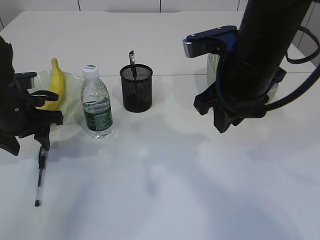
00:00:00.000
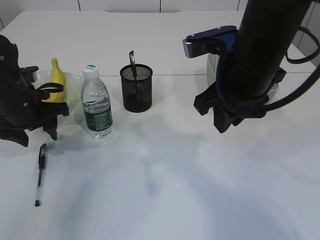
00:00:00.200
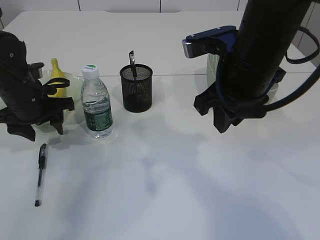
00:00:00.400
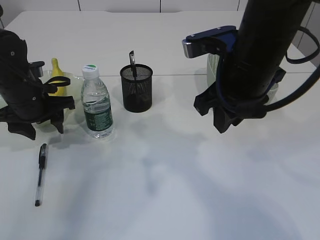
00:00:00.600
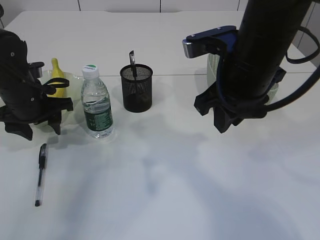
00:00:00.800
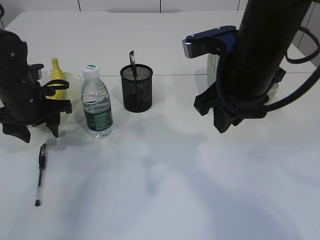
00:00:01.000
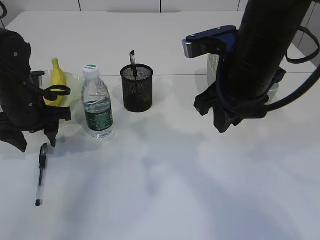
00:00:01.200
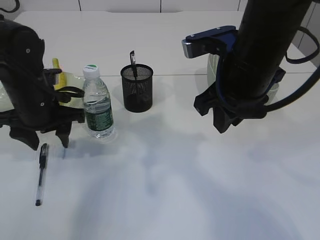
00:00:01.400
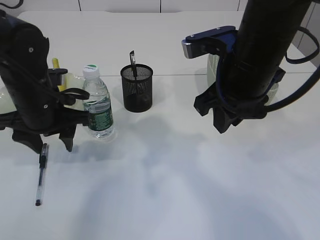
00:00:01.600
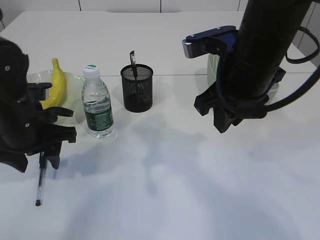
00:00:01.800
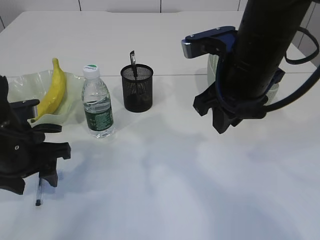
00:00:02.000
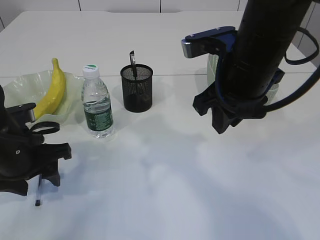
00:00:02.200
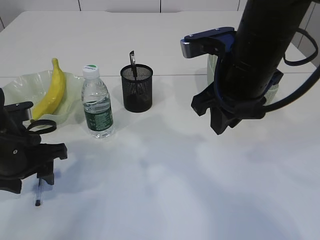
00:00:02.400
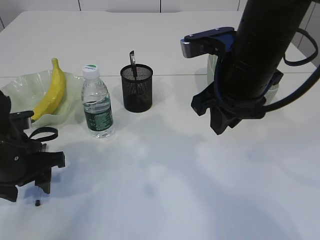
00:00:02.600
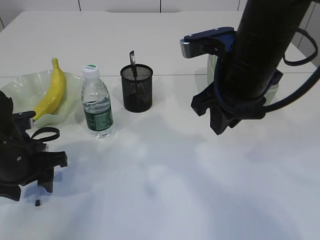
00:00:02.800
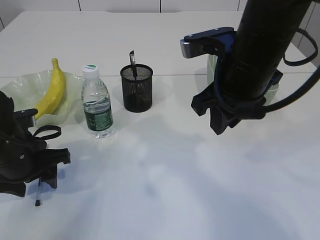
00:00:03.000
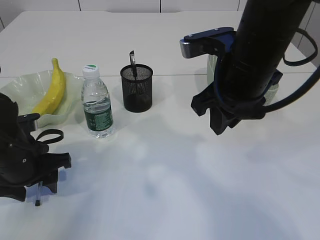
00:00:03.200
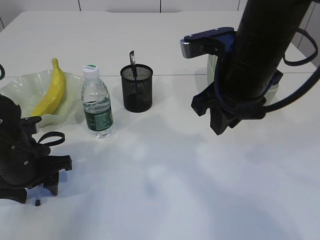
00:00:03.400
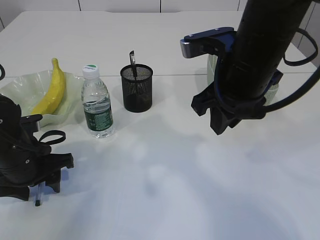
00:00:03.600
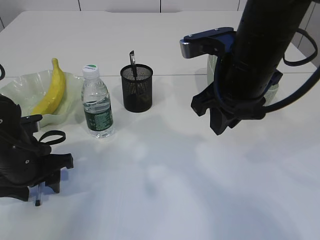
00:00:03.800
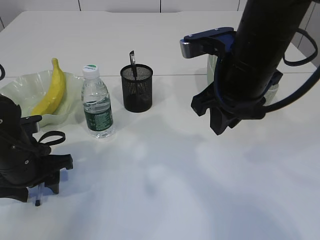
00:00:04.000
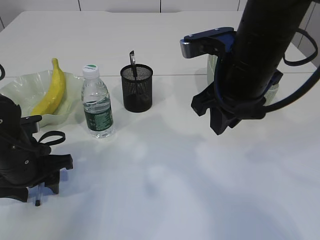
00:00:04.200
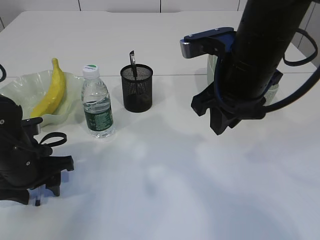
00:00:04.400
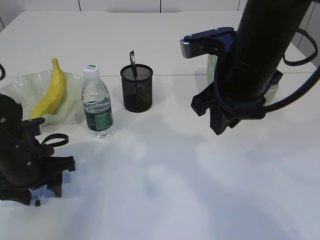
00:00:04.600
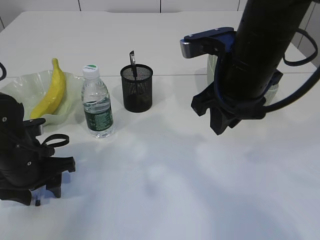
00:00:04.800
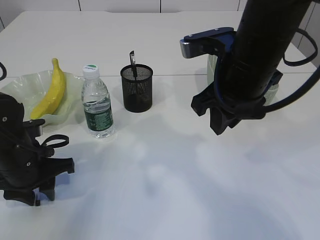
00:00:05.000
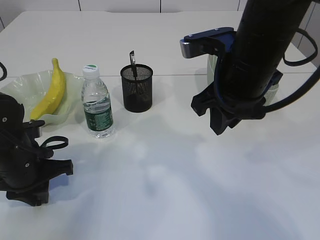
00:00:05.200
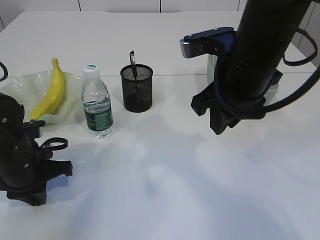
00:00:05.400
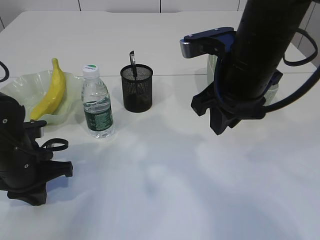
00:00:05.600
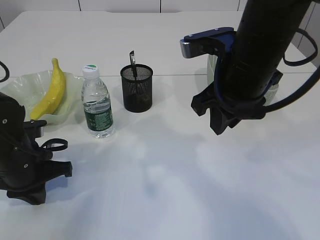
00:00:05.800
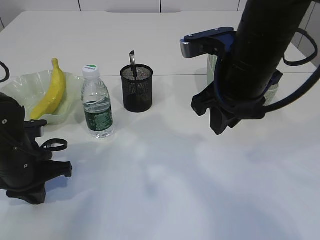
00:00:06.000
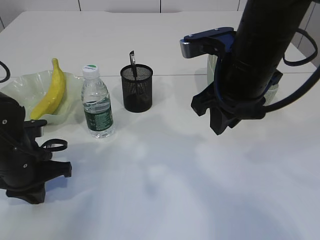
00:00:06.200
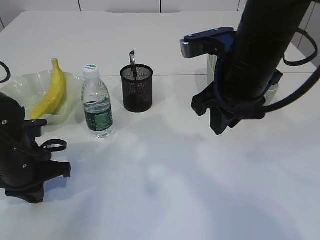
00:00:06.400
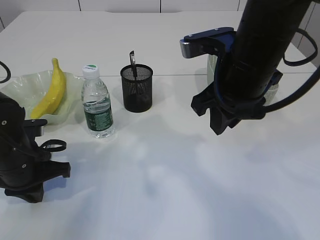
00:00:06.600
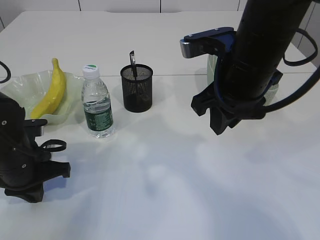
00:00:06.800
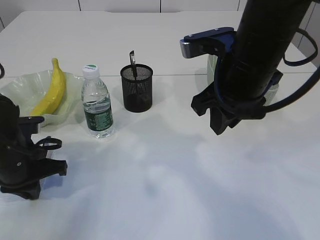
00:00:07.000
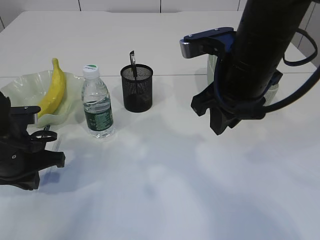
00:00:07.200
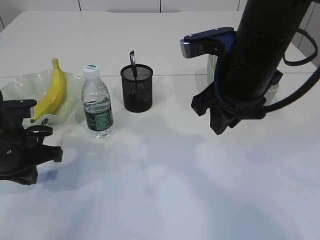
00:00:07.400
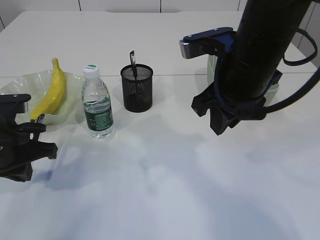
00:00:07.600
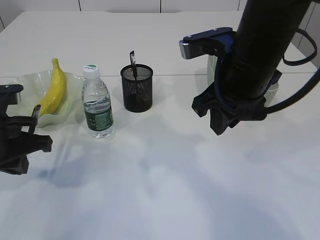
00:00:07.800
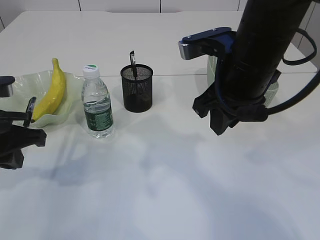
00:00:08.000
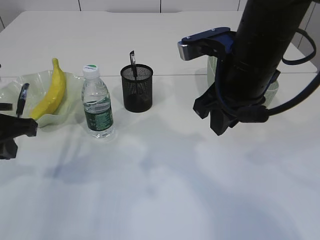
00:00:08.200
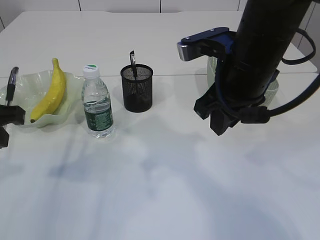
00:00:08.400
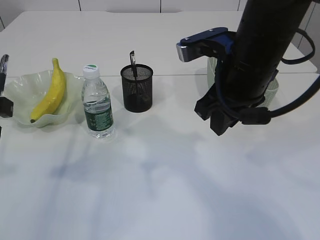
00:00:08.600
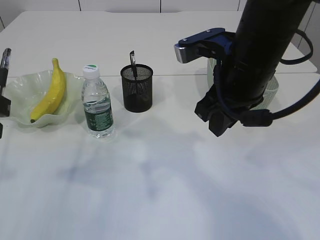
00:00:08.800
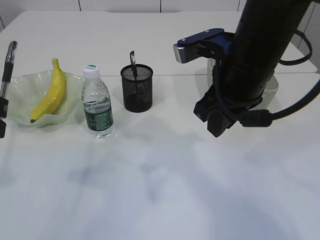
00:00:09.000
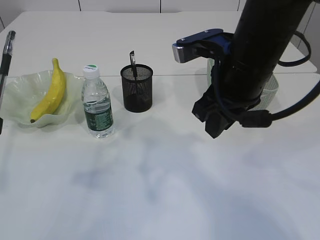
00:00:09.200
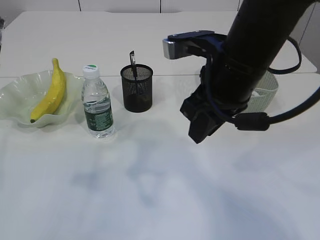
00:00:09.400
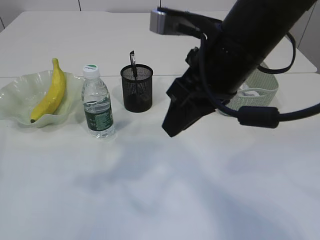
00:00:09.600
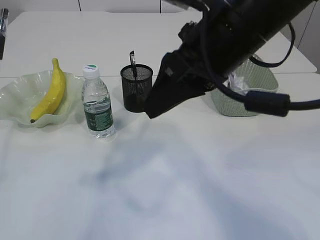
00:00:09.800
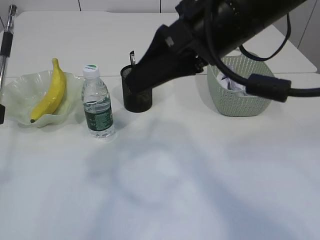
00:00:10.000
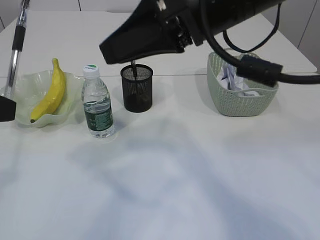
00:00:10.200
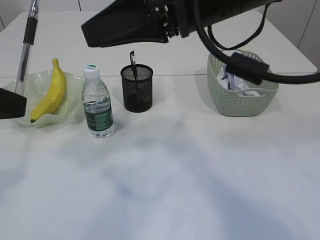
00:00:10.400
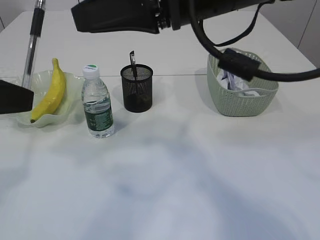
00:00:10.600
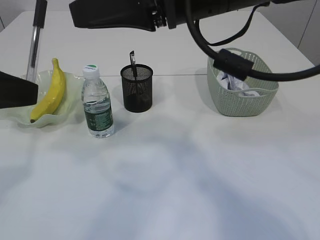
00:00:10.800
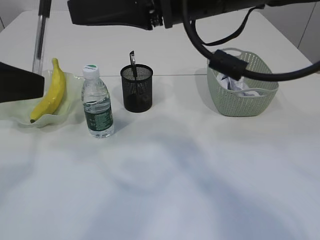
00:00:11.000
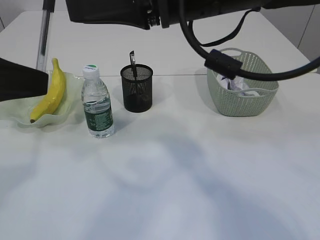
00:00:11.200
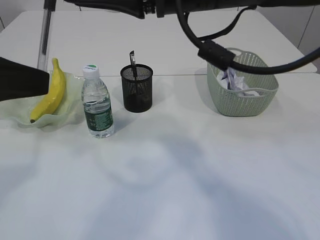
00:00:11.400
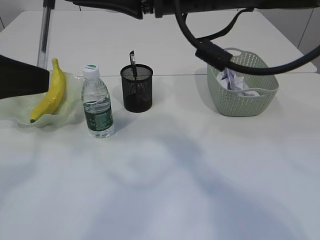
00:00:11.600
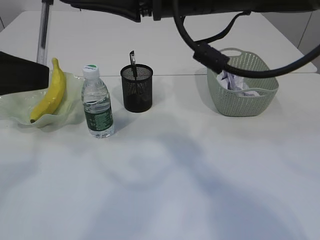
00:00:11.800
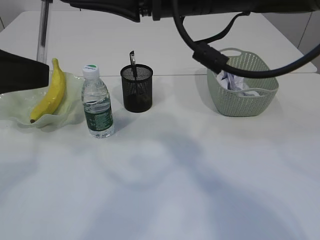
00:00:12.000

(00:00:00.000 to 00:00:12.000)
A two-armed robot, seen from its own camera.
Step, 00:00:00.000 - 00:00:08.000: Pick up the pen with left arm.
00:00:00.000 - 00:00:01.600: The left gripper is displaced to the right by roughly 5 cm.
00:00:01.600 - 00:00:03.000: The left gripper travels backward and downward by approximately 10 cm.
00:00:03.000 - 00:00:04.400: The grippers stay close to where they were, moving slightly.
00:00:04.400 - 00:00:06.000: The left gripper closes.
00:00:06.000 - 00:00:07.600: The left gripper goes some 5 cm upward.
00:00:07.600 - 00:00:09.000: The left gripper moves upward and backward, approximately 15 cm.
00:00:09.000 - 00:00:10.400: The left gripper shifts by some 5 cm, while the right gripper goes some 10 cm upward.
00:00:10.400 - 00:00:12.000: The grippers stay close to where they were, moving slightly.

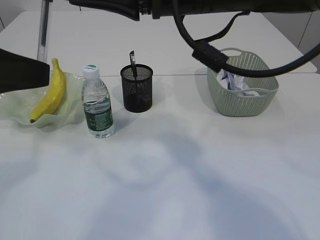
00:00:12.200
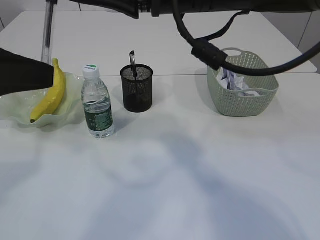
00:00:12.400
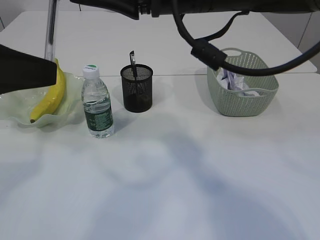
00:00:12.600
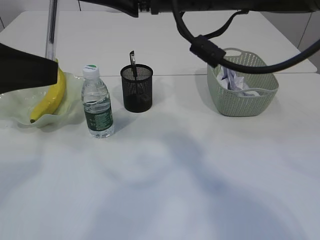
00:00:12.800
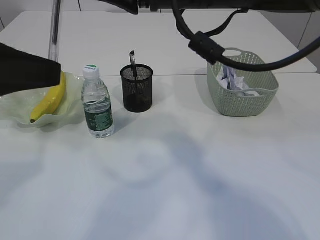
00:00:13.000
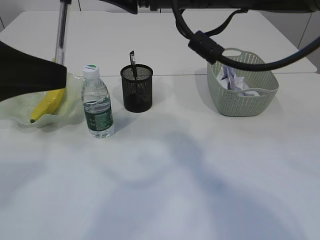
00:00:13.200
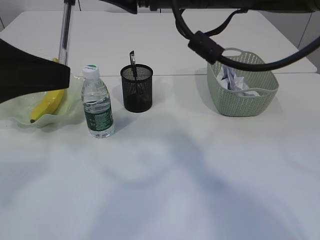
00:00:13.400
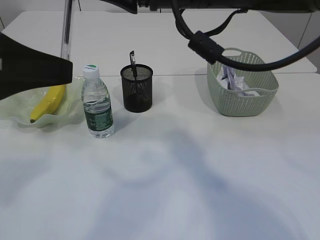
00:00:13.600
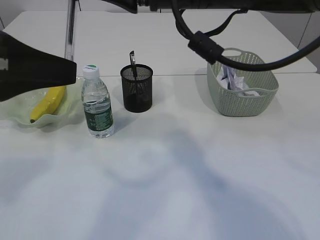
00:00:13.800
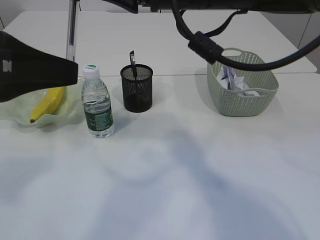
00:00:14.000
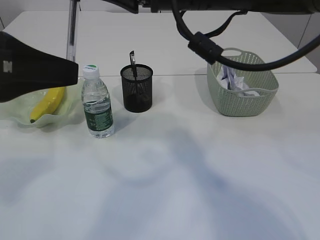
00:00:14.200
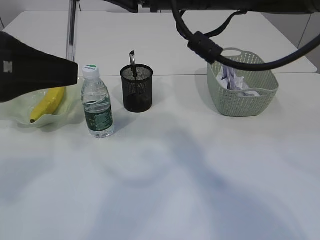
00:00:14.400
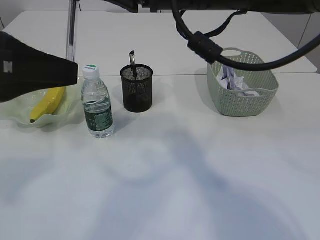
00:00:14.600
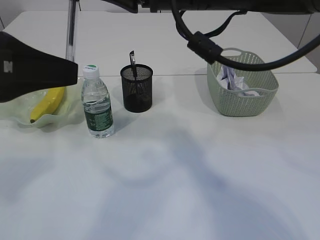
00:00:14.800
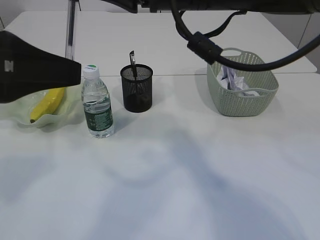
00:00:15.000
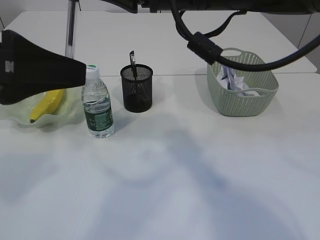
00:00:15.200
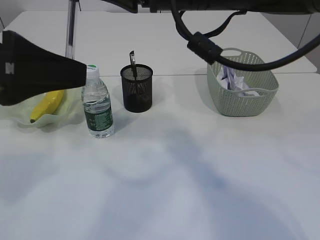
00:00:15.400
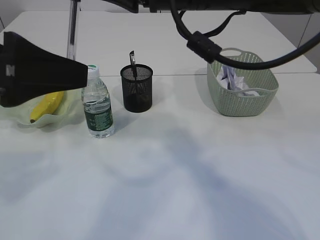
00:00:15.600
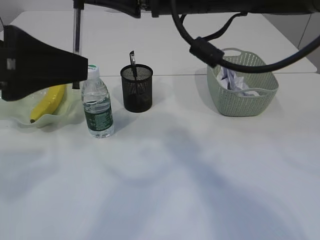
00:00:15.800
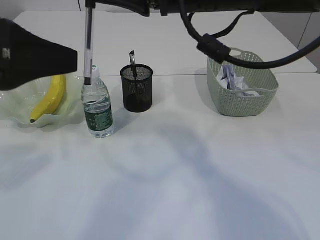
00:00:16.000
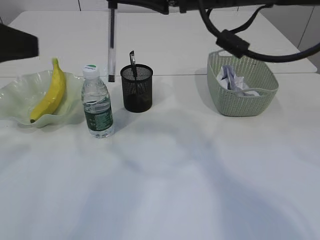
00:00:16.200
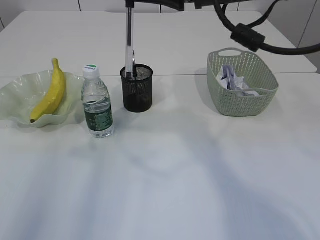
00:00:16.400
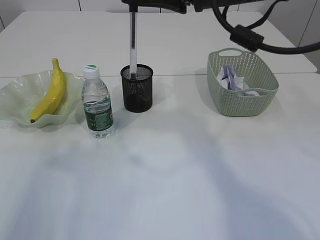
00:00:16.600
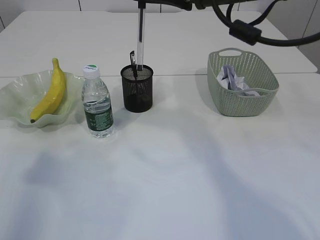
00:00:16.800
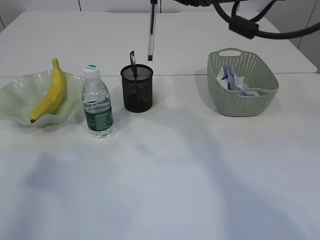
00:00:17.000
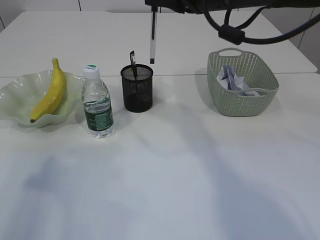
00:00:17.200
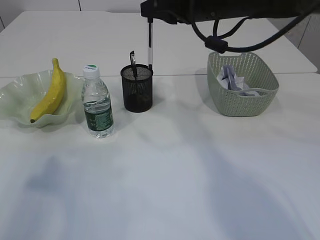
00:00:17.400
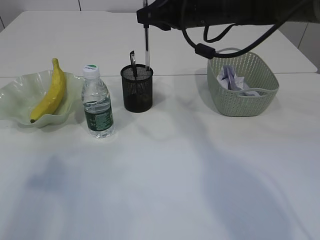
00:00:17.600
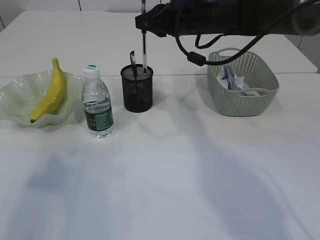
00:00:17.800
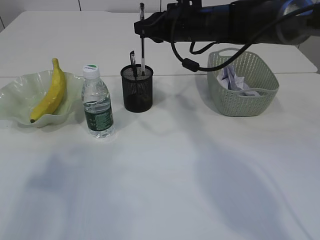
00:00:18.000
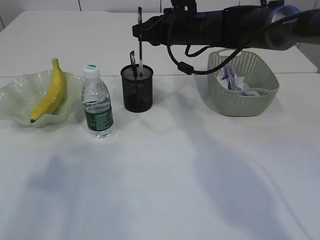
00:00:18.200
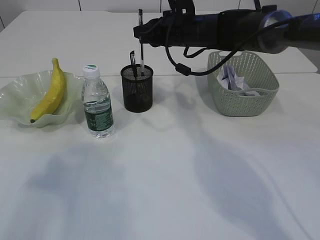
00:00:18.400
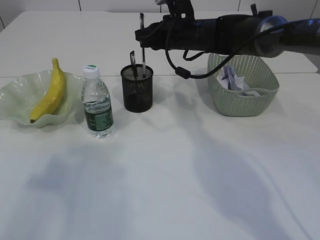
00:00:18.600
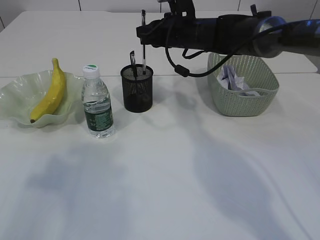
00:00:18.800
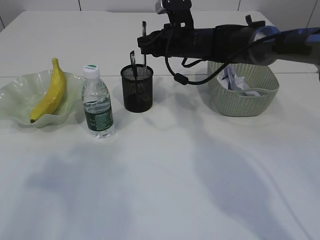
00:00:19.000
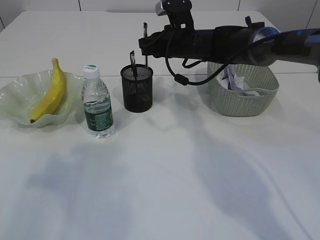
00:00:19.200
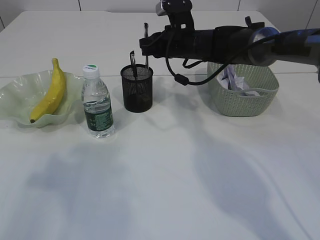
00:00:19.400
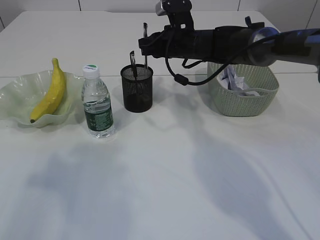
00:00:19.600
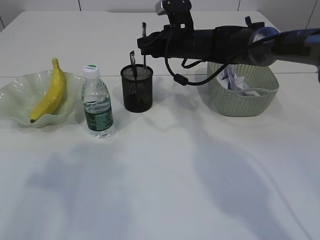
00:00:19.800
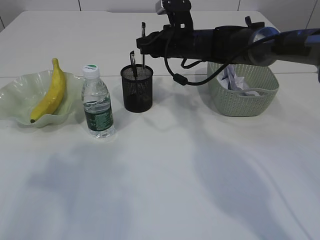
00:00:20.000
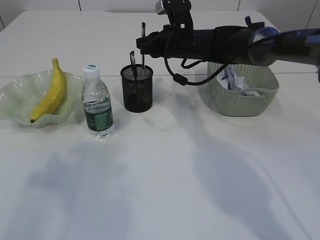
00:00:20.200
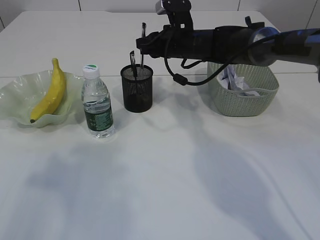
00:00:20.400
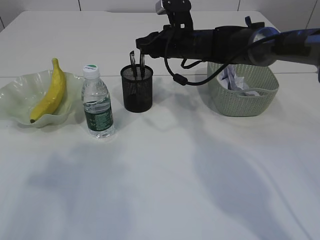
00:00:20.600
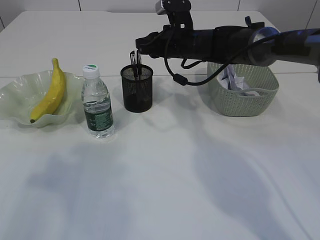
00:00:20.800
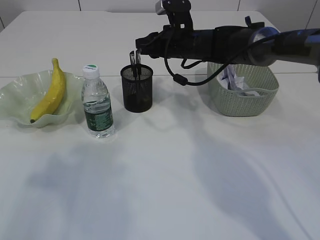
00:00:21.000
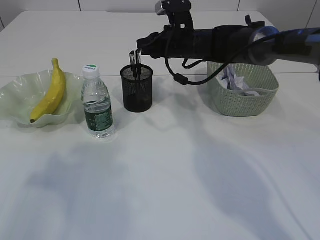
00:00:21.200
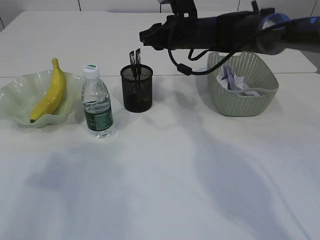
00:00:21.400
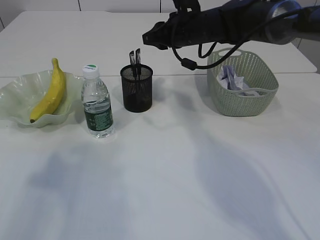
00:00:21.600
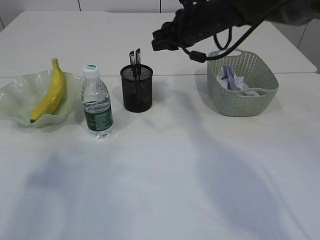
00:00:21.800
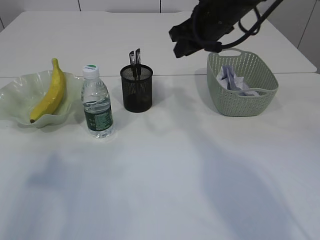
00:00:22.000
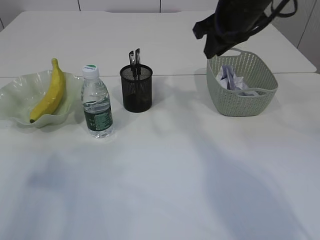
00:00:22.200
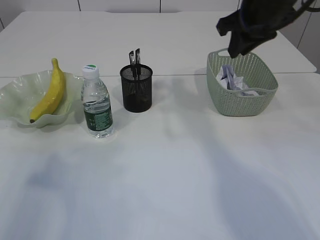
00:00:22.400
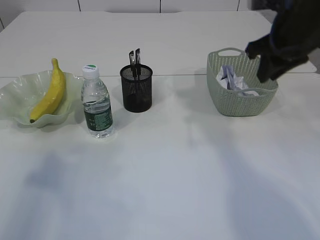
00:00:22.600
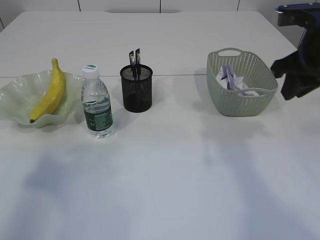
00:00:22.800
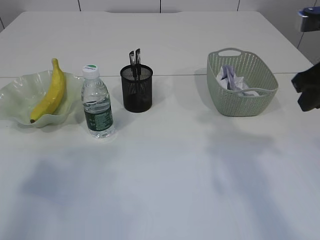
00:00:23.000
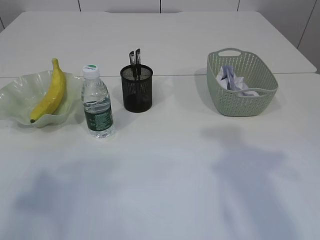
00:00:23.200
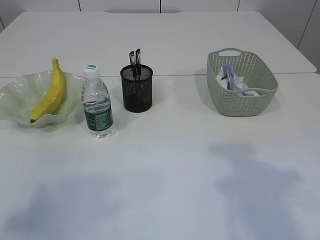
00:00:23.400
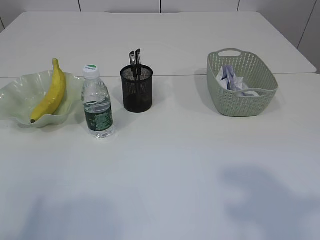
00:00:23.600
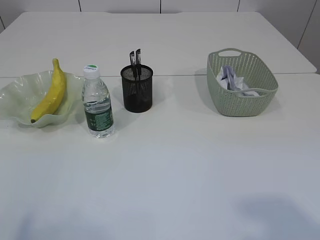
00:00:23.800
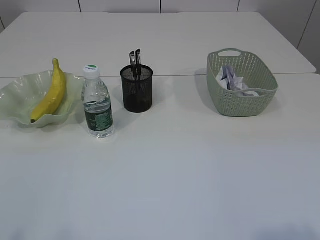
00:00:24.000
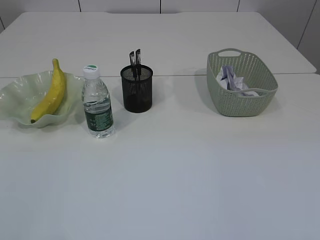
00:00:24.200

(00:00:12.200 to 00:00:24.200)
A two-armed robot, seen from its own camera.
Step, 00:00:12.200 - 00:00:16.000: transfer the pen to the right arm.
Step, 00:00:16.200 - 00:00:21.400: Place the pen into the pen holder.
00:00:12.200 - 00:00:13.800: There are only small adjustments of the grippers.
00:00:13.800 - 00:00:15.200: The left gripper opens its fingers; the right gripper closes up.
00:00:15.200 - 00:00:16.600: The right gripper moves approximately 5 cm. Meanwhile the left gripper travels to the left by about 10 cm.
00:00:16.600 - 00:00:18.200: The right gripper travels forward and downward by roughly 20 cm.
00:00:18.200 - 00:00:19.800: The grippers stay close to where they were, moving slightly.
00:00:19.800 - 00:00:21.200: Both grippers stay put.
00:00:21.200 - 00:00:22.600: The right gripper goes about 20 cm to the right, backward and upward.
00:00:22.600 - 00:00:24.200: The left gripper goes roughly 20 cm backward. Meanwhile the right gripper heads backward, covering roughly 40 cm.
